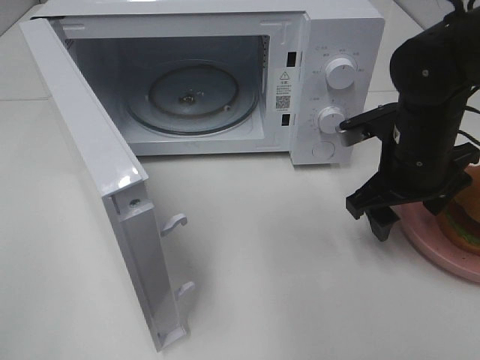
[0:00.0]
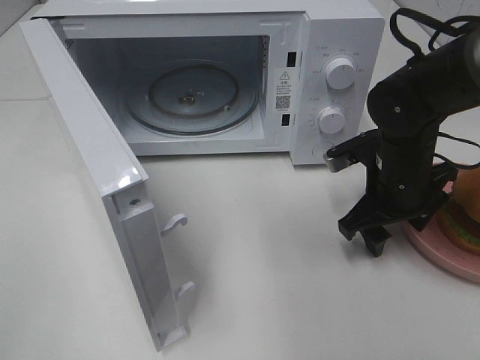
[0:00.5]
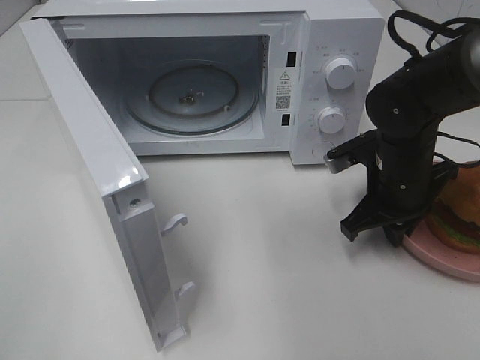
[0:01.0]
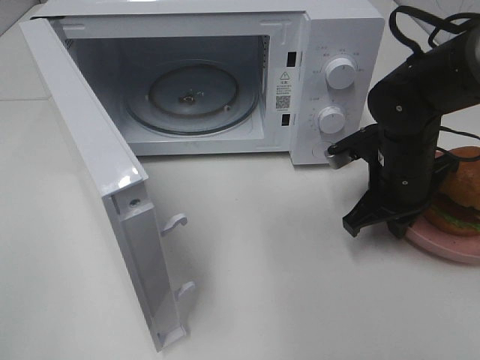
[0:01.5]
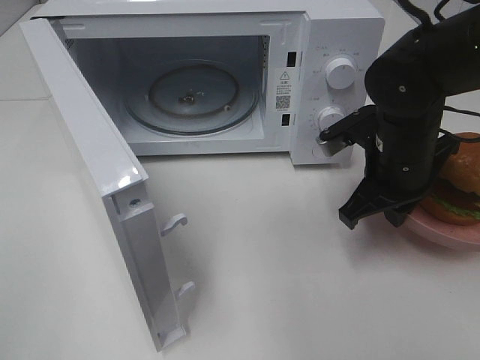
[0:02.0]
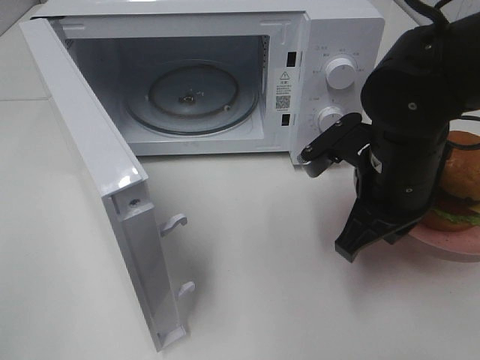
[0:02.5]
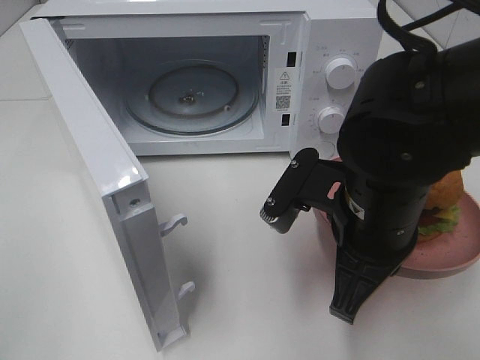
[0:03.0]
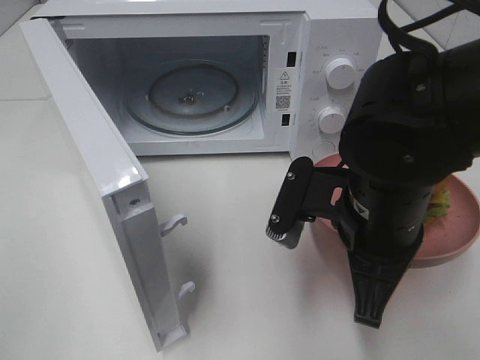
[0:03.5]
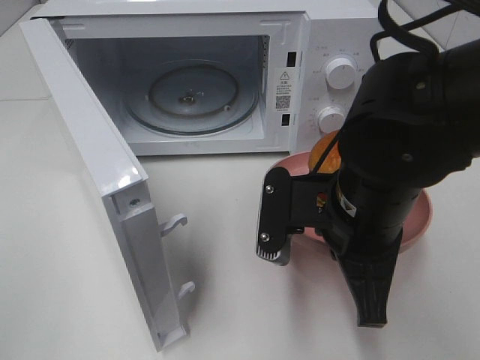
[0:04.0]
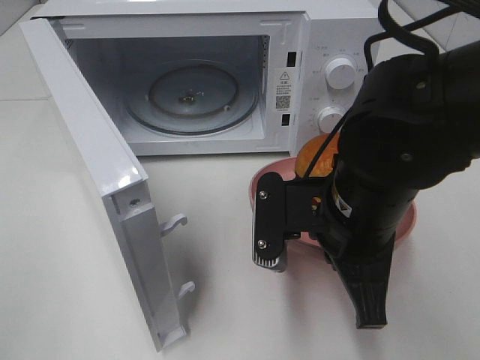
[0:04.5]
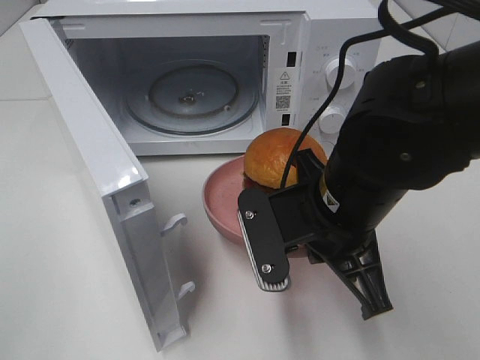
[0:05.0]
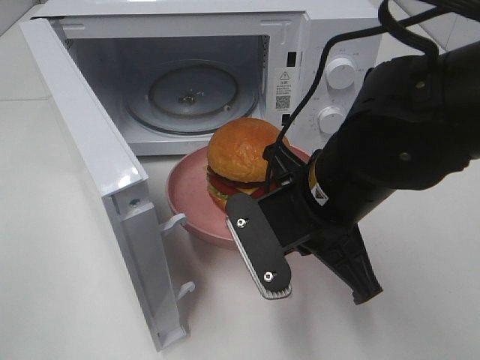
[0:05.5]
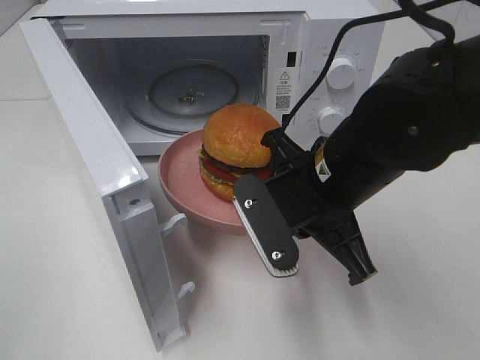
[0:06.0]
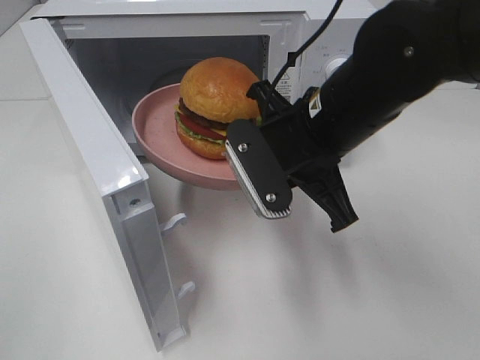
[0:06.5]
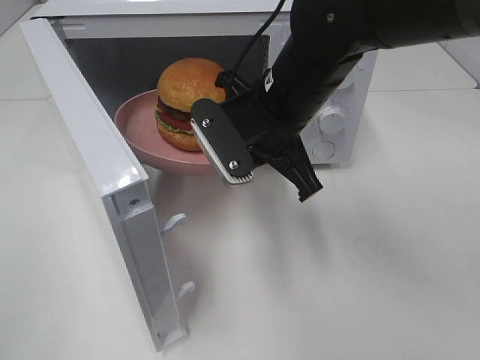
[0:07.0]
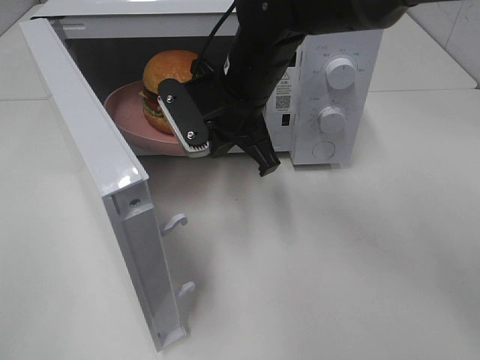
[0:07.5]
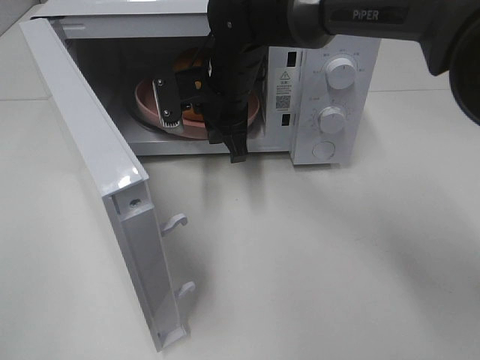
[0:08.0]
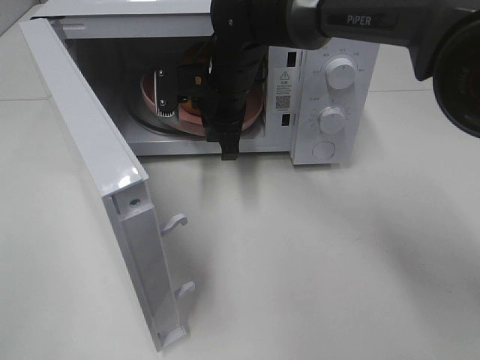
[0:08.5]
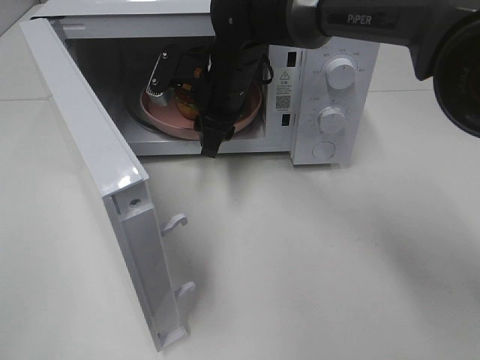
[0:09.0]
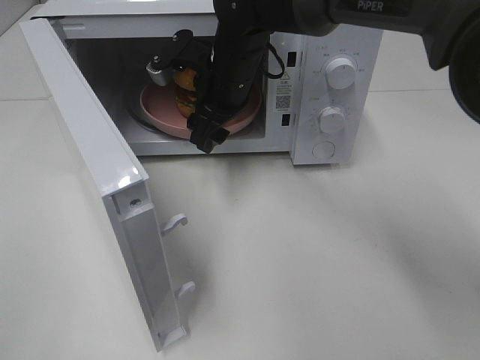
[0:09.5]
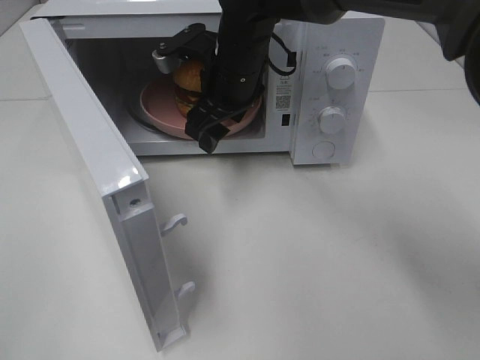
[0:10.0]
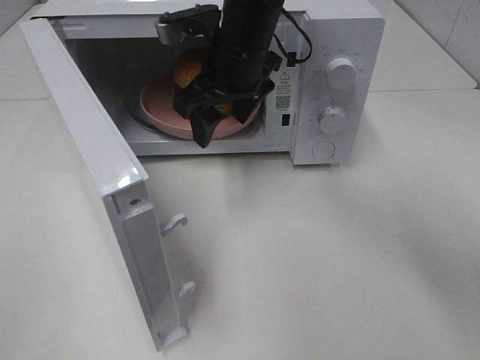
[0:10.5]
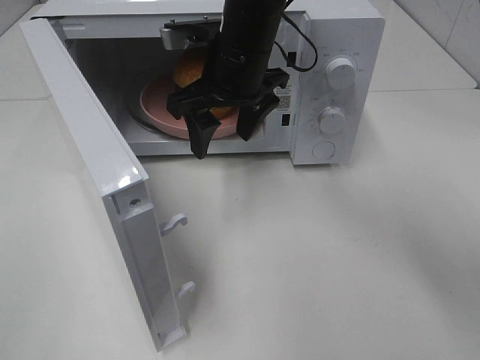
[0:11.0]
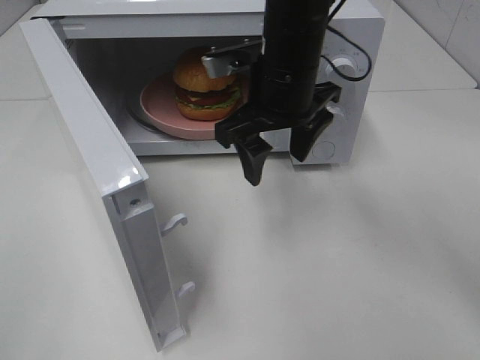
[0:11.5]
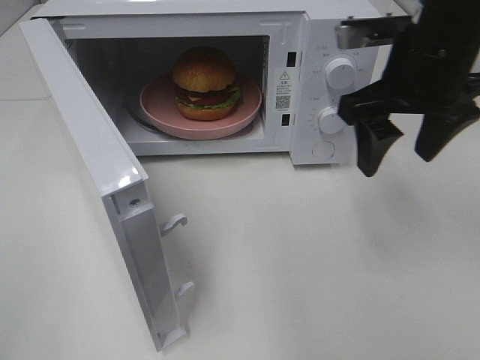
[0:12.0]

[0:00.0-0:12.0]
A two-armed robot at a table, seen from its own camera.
Task of the whole recording: Heat the burger.
Step, 0:01.5 to 0:09.0: Right hand: place the plate in the microwave.
0:00.0 to 0:02.0: The right gripper closes up.
0:02.0 to 0:04.0: The right gripper is displaced backward and to the left by some 10 cm.
0:06.0 to 0:08.0: The right gripper travels forward and to the left by about 20 cm.
0:08.0 to 0:10.0: The right gripper opens up.
0:10.0 to 0:12.0: The right gripper travels to the right, backward and upward by roughly 20 cm.

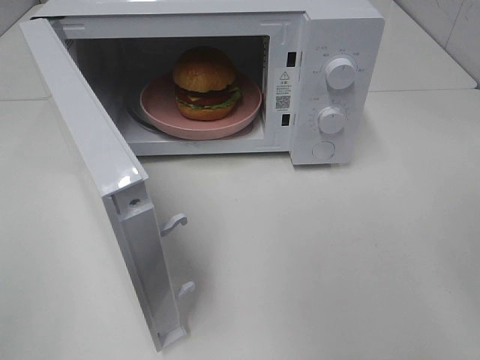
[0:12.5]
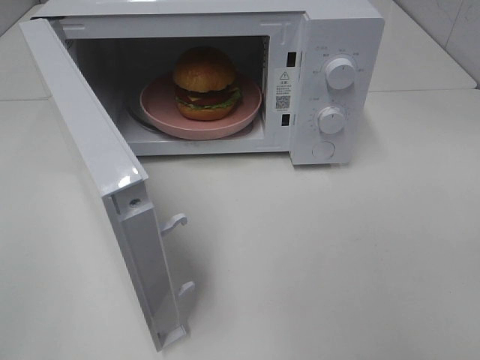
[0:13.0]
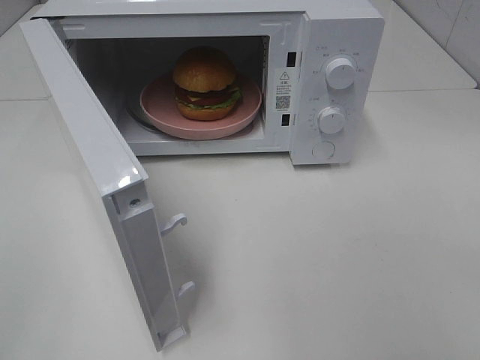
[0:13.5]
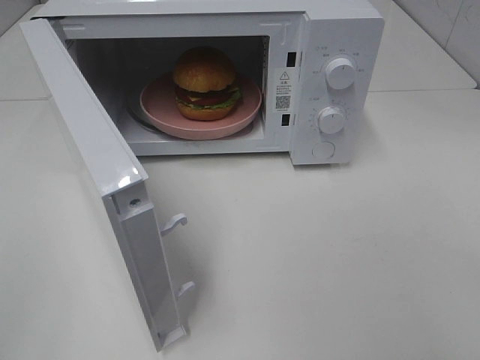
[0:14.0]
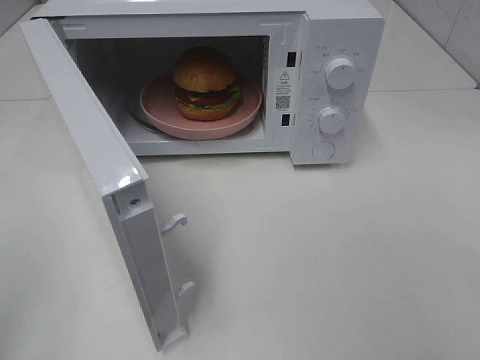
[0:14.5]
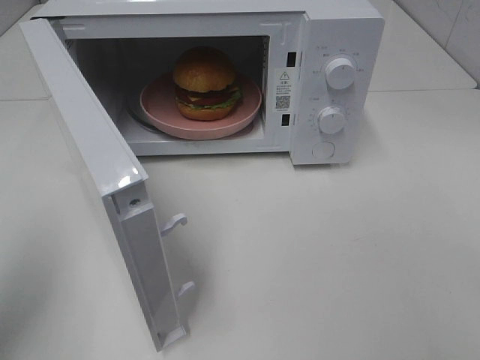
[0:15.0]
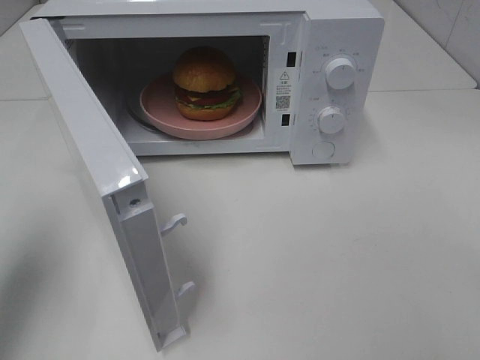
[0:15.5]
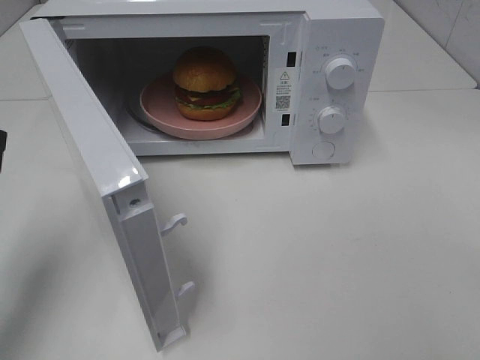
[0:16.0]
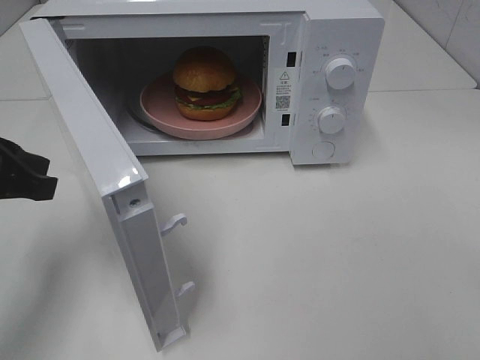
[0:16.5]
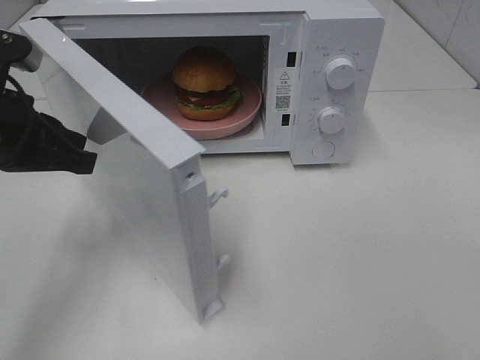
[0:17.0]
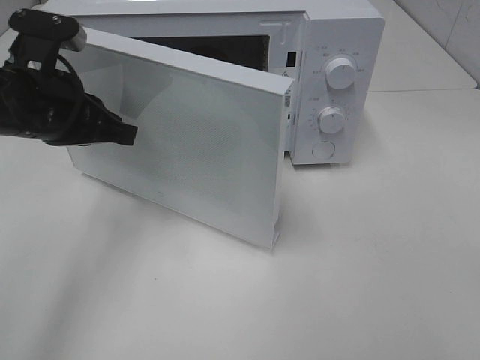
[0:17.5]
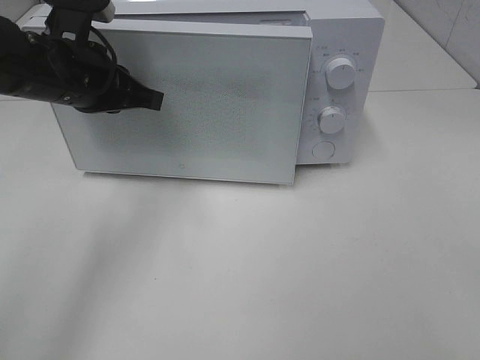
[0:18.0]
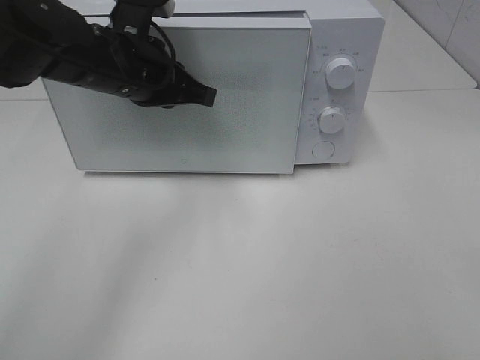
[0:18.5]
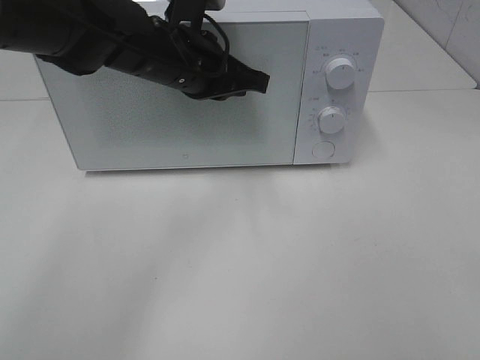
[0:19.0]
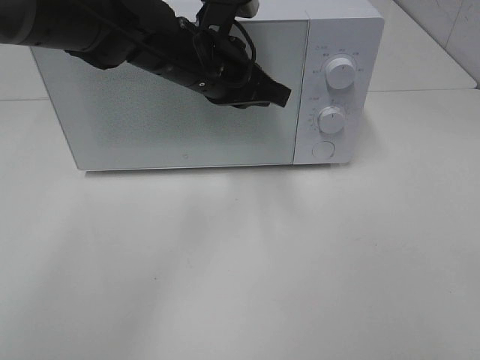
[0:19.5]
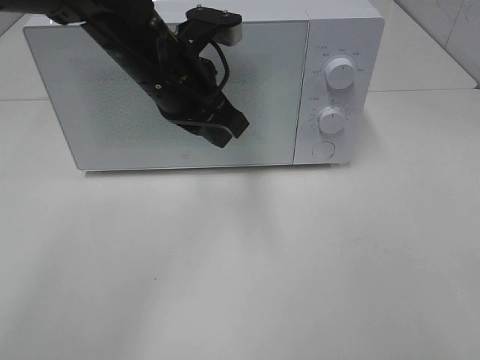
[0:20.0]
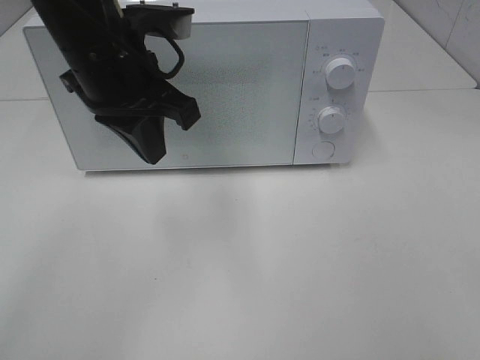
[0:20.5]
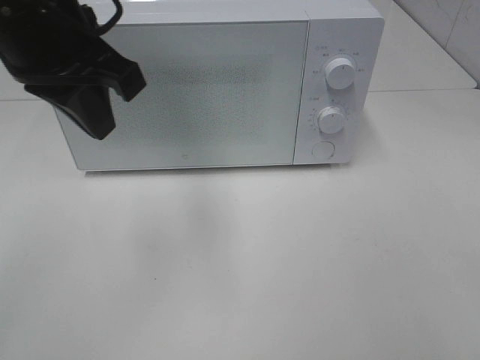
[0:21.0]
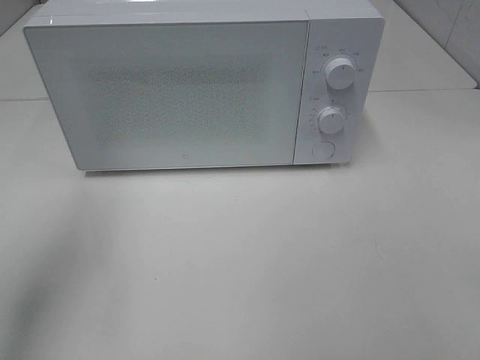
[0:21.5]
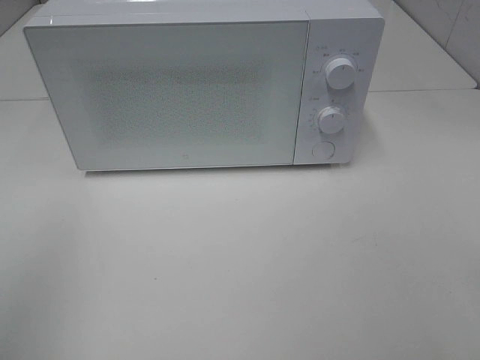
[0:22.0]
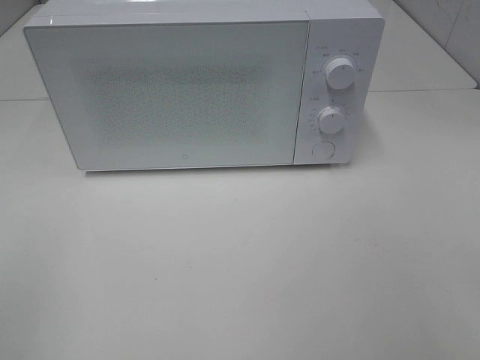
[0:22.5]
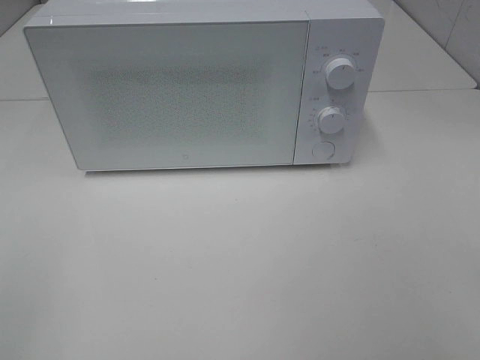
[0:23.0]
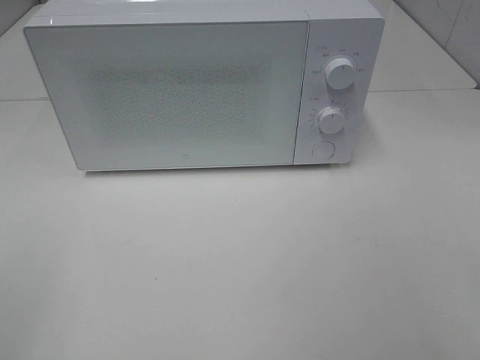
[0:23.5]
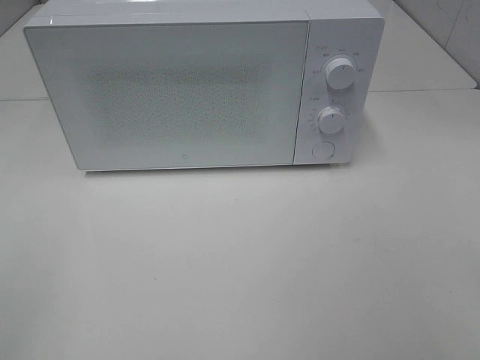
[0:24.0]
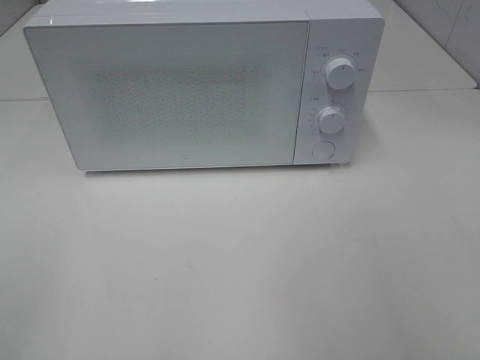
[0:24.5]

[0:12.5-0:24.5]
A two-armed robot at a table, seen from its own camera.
Task of the whole recording: Heat the burger.
Step, 0:12.5 to 0:19.5: Left hand: close the microwave door.
0:14.5 to 0:16.5: The left gripper heads forward and downward, covering approximately 20 cm.
0:16.5 to 0:18.5: The left gripper goes about 20 cm to the right and forward.
0:18.5 to 0:20.5: The left gripper heads upward and backward, covering about 10 cm.
0:20.5 to 0:22.5: The left gripper shifts about 35 cm backward and to the left.

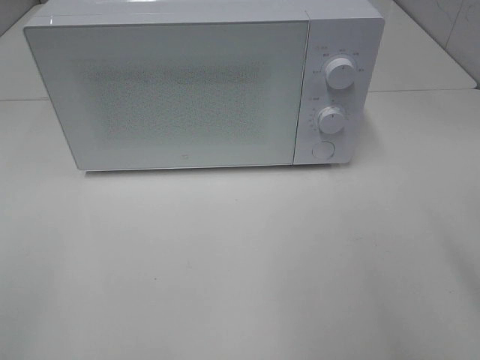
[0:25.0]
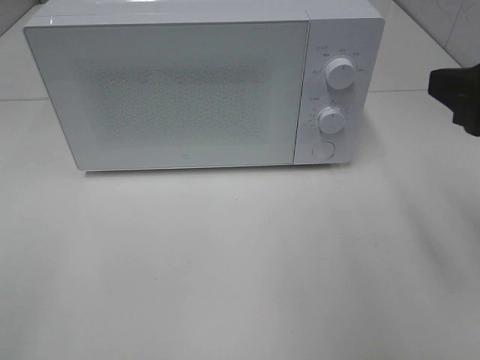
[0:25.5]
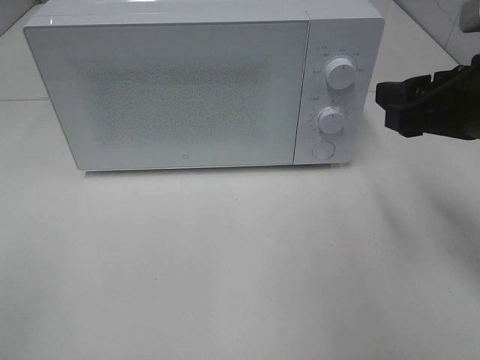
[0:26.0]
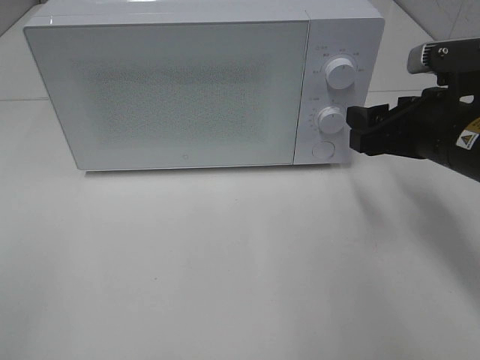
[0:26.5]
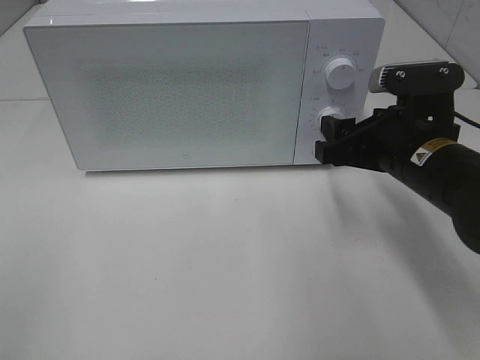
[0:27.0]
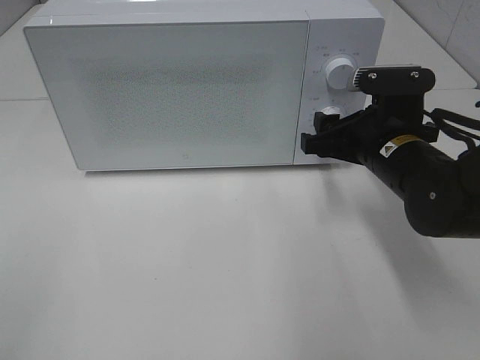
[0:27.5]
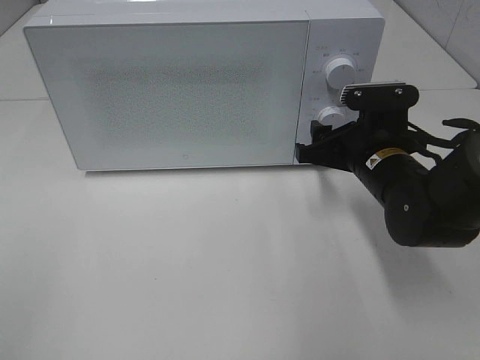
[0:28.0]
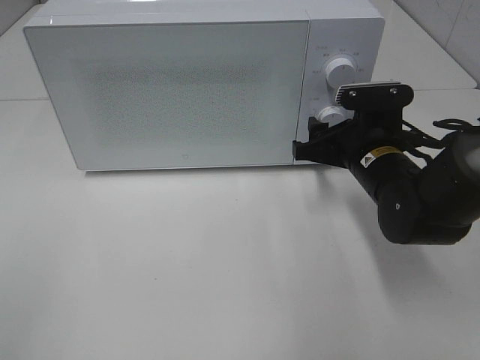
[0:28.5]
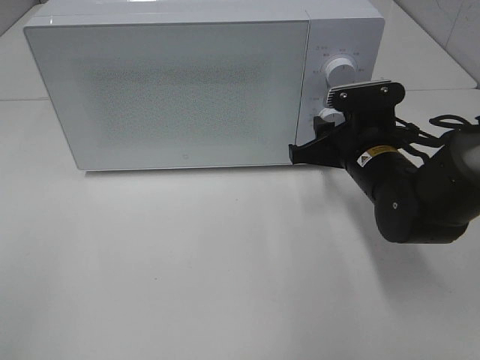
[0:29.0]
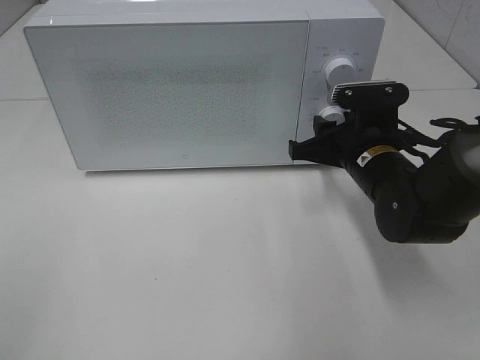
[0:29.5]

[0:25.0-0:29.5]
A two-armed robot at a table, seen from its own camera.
Task of the whole recording: Heat the burger.
0:25.0 to 0:27.0: The right gripper moves forward, downward and to the left, approximately 25 cm.
0:27.0 to 0:29.5: The right gripper travels forward by approximately 5 cm, and closes its fingers.
